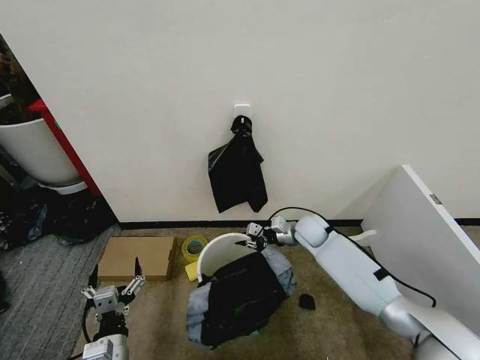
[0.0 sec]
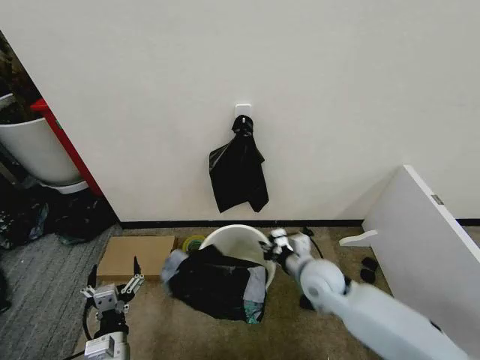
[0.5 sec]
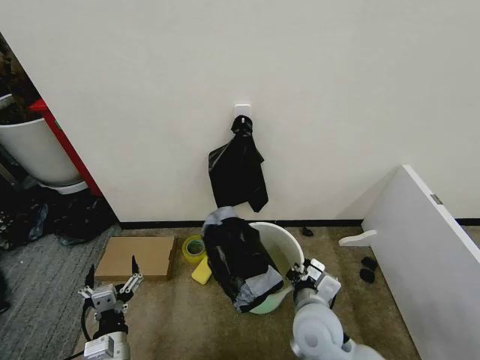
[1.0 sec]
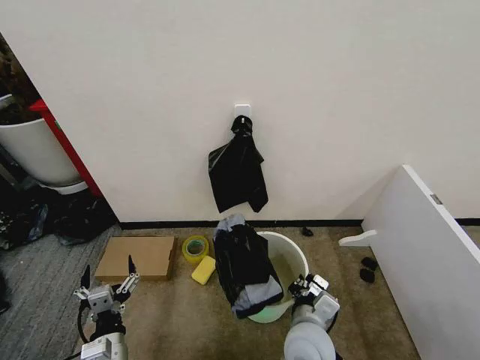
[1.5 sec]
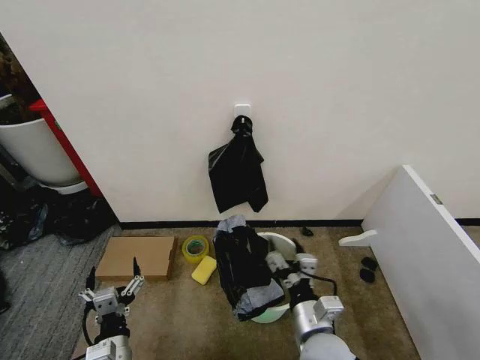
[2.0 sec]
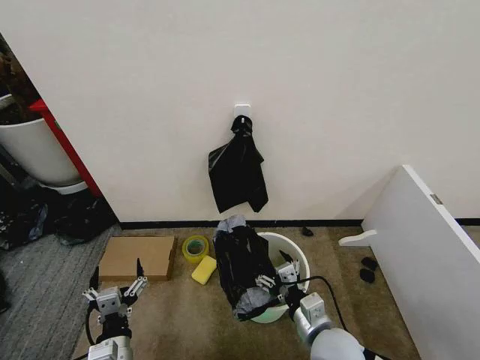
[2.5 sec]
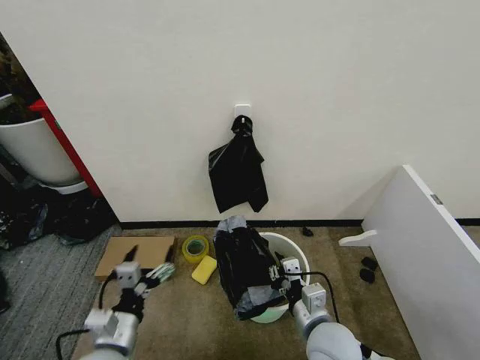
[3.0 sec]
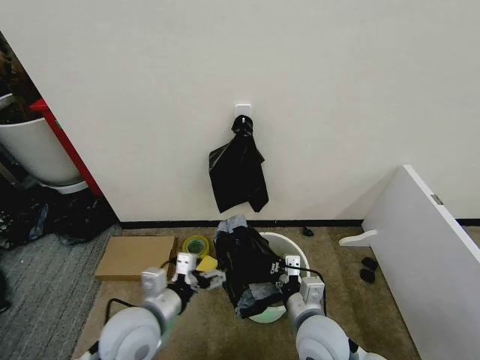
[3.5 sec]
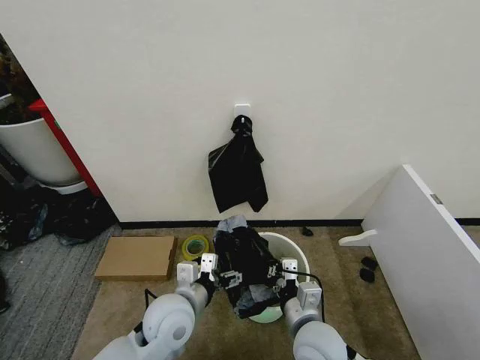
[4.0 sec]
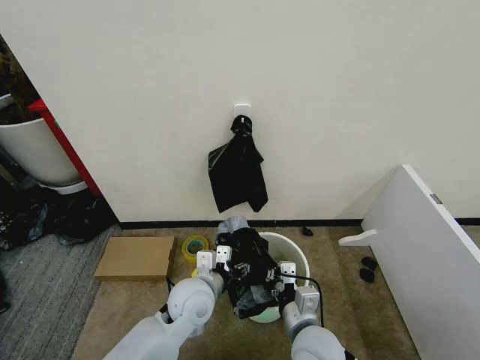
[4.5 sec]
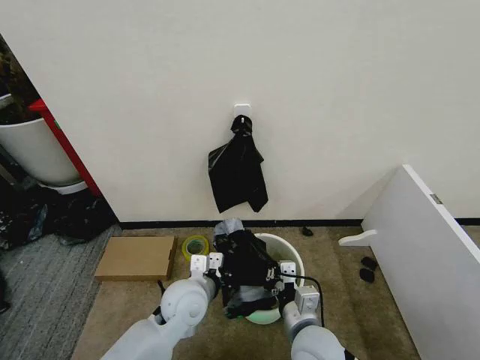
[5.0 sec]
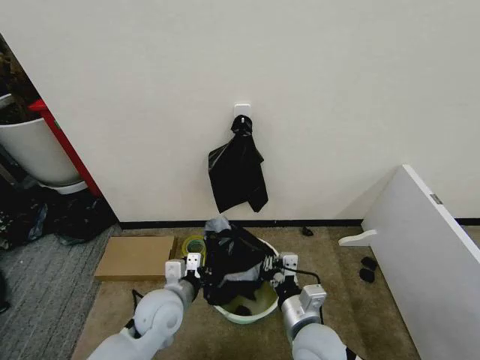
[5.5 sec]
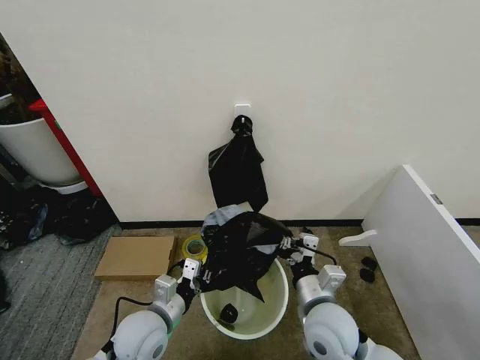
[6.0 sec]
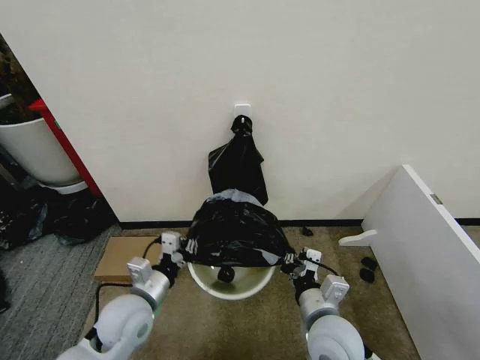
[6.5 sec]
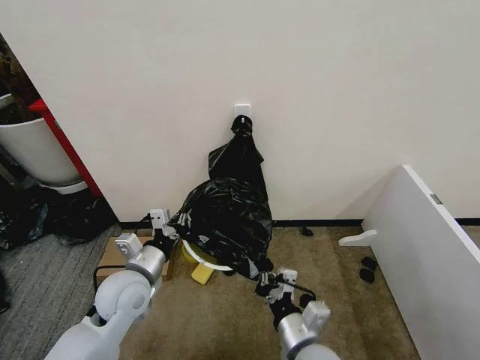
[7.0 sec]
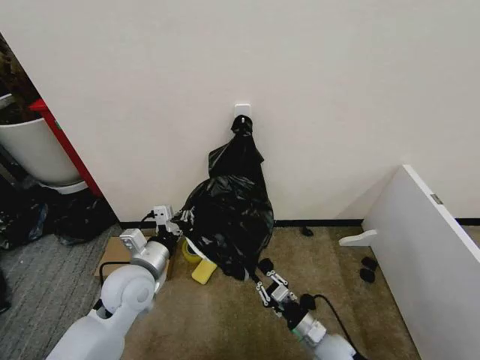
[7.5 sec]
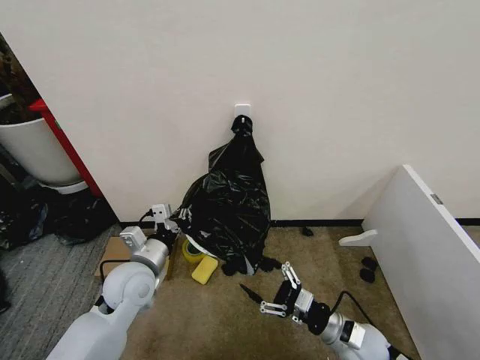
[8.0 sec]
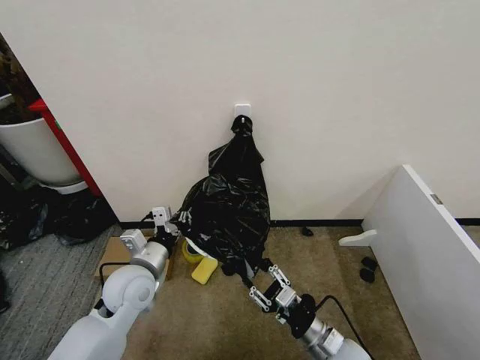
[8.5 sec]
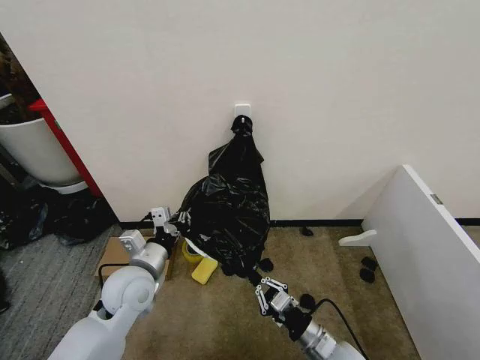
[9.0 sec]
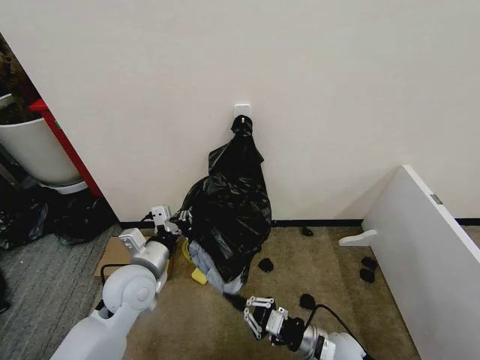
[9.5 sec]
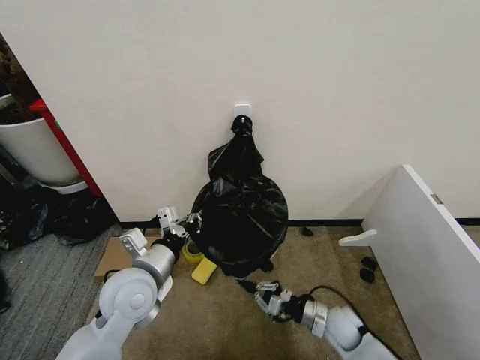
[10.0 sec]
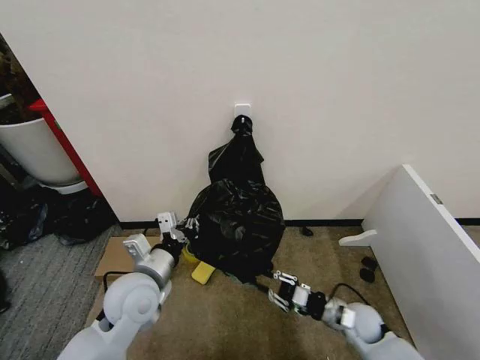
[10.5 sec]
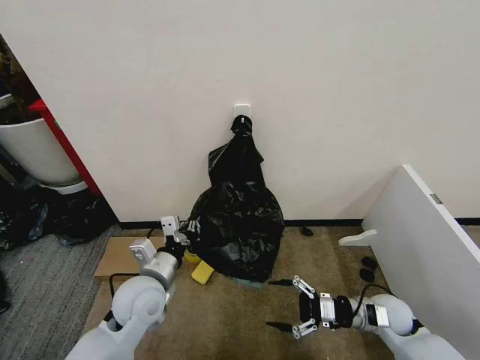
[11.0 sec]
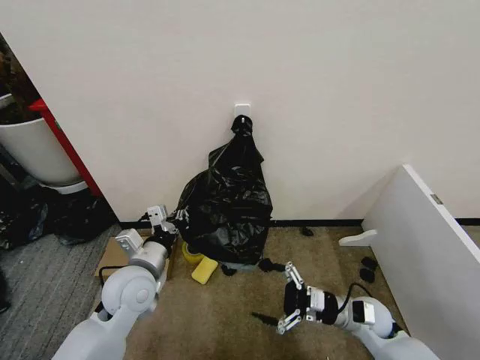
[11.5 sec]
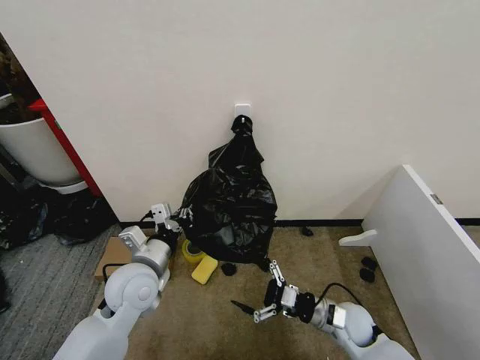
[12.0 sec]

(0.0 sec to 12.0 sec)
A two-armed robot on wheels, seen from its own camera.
Task of the whole recording: Place the garbage bag over the trash bin.
0.0 sec - 2.0 sec: The right gripper travels backward by some 30 cm, and opens.
2.0 sec - 4.0 sec: The right gripper closes its fingers, while the left gripper goes about 20 cm forward, to the right and upward.
4.0 sec - 6.0 sec: The left gripper shifts approximately 5 cm to the left, and closes its fingers.
6.0 sec - 8.0 sec: The left gripper travels forward and upward by some 10 cm. Meanwhile the right gripper heads downward and to the right, covering some 15 cm, and opens up.
8.0 sec - 10.0 sec: The right gripper is displaced downward and forward by approximately 10 cm, and closes its fingers; the left gripper ends up about 5 cm from where it was.
10.0 sec - 12.0 sec: The right gripper shifts about 5 cm upward, reaches about 10 cm to the right, then returns, and opens its fingers.

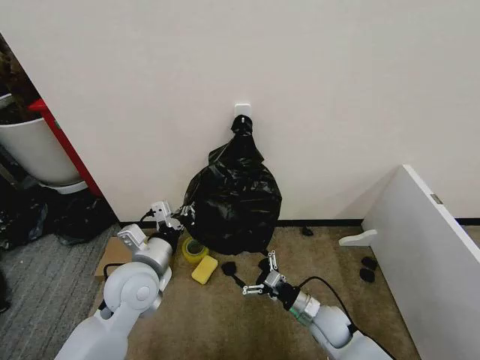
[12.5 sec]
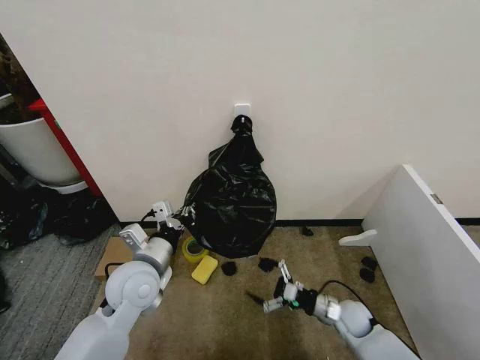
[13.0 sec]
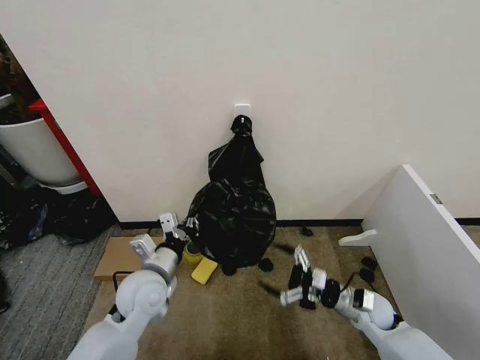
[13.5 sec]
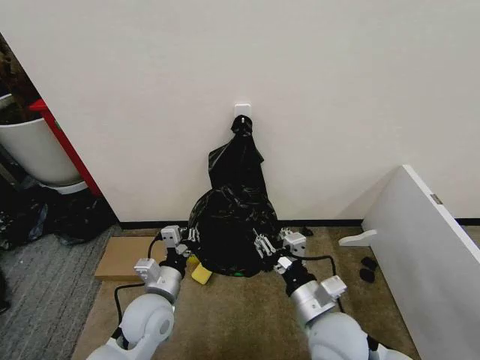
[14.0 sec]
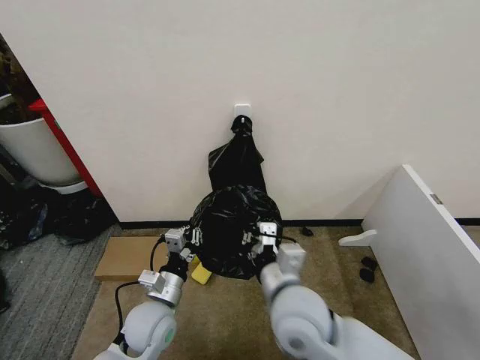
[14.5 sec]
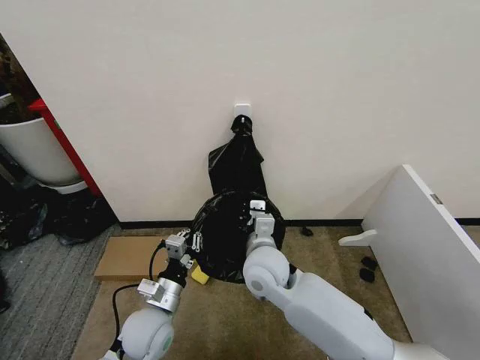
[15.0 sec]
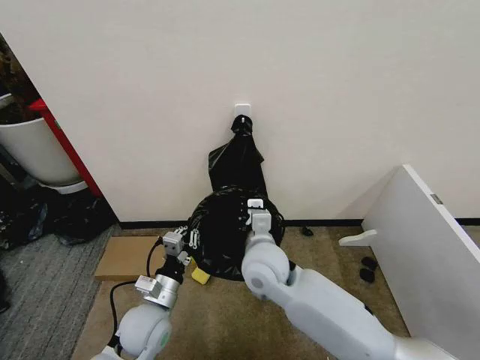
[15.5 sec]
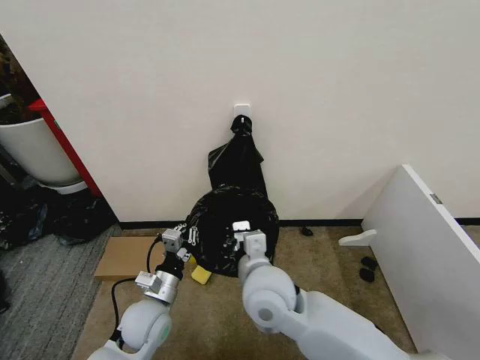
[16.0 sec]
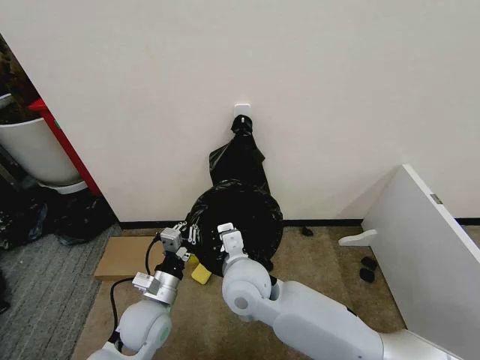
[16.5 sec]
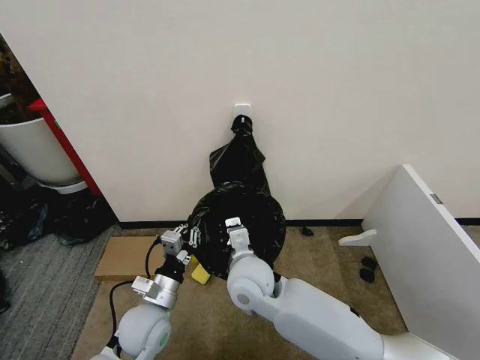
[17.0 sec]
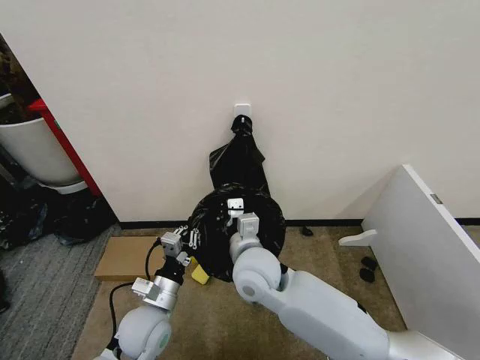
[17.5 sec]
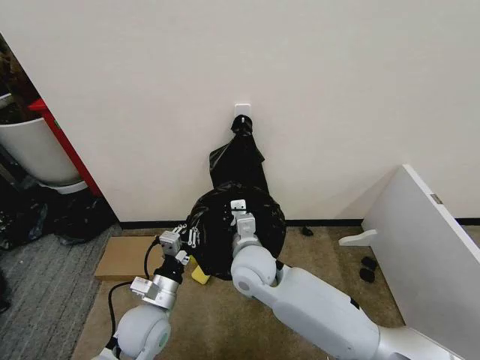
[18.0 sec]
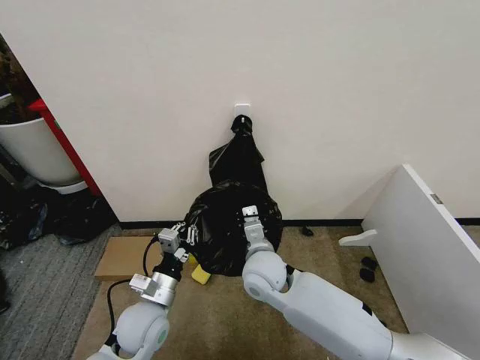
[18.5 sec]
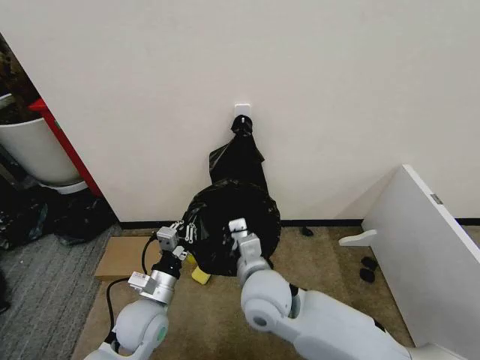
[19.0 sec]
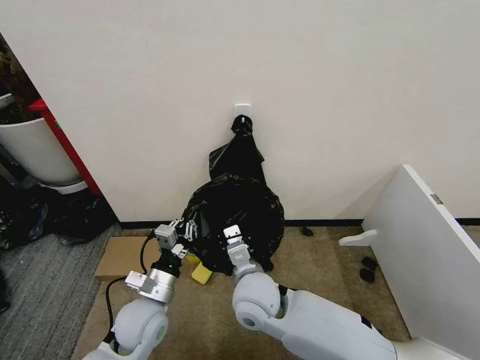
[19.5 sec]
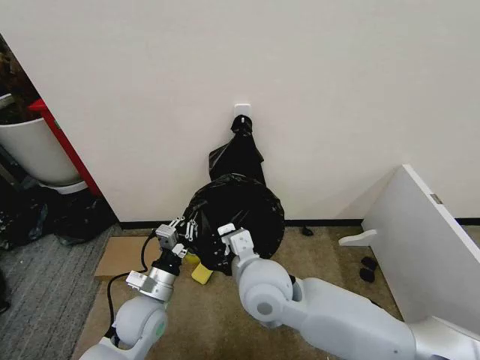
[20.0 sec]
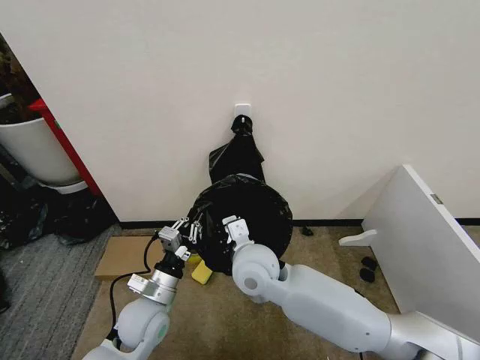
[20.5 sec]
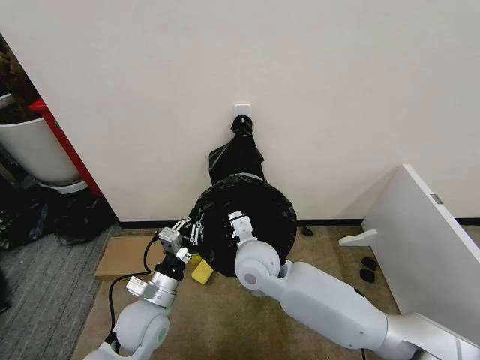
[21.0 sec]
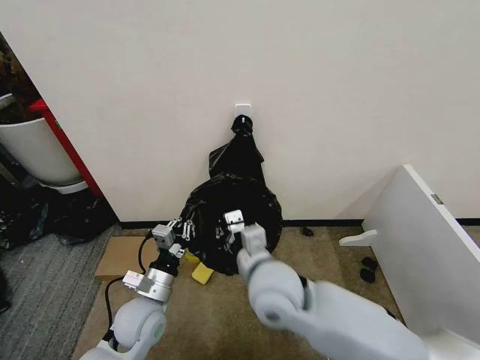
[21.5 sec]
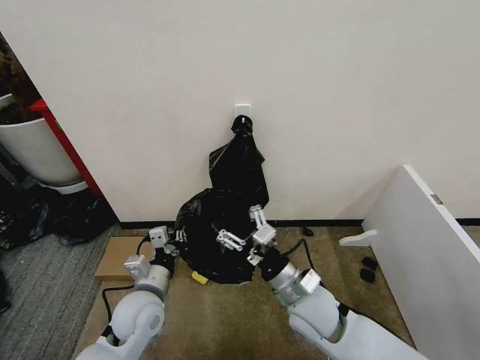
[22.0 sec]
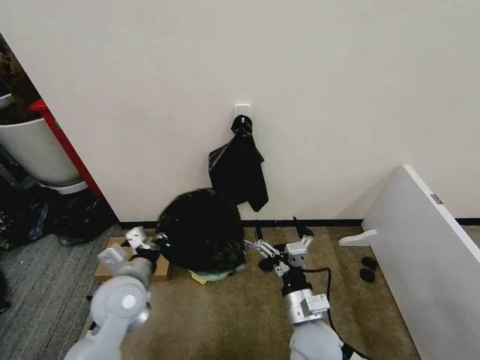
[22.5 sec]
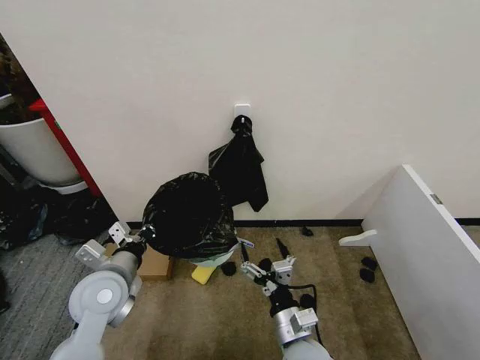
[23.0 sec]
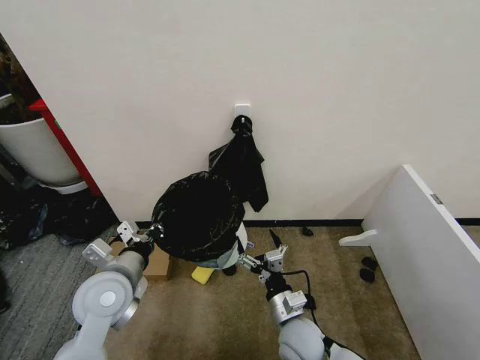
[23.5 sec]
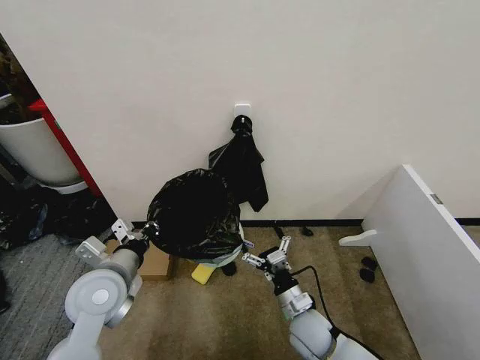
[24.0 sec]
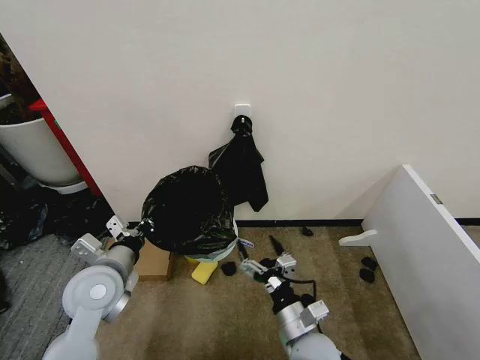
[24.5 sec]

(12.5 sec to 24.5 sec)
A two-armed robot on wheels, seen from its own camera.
Task of the whole recording: Place the garbage bag over the trash bin.
12.5 sec - 14.5 sec: The left gripper shifts some 10 cm downward. The right gripper travels upward and to the left by about 25 cm, and closes up.
14.5 sec - 16.5 sec: The right gripper is displaced to the left and forward by about 10 cm.
16.5 sec - 18.5 sec: The right gripper shifts by about 5 cm.
20.5 sec - 22.5 sec: The left gripper goes roughly 5 cm upward. The right gripper travels backward, to the right and downward by roughly 20 cm, and opens.
22.5 sec - 24.5 sec: The right gripper moves approximately 10 cm downward and comes back.

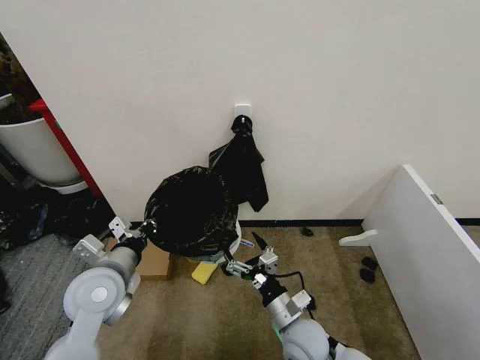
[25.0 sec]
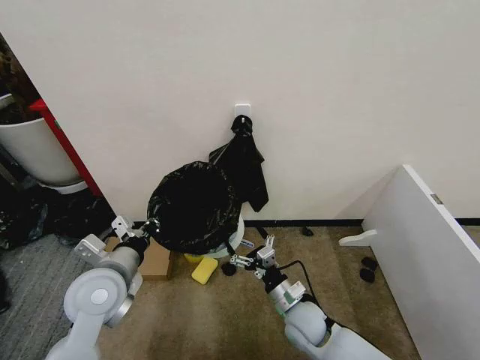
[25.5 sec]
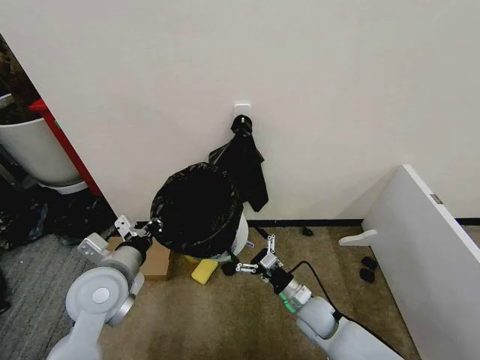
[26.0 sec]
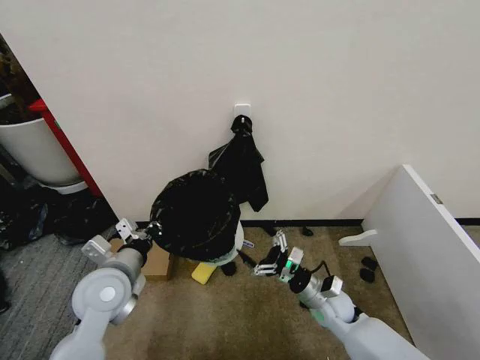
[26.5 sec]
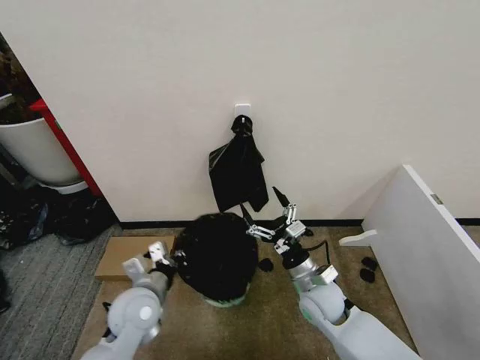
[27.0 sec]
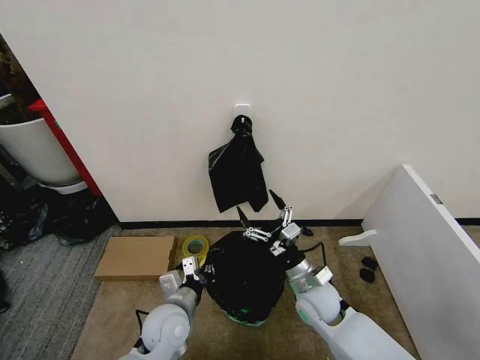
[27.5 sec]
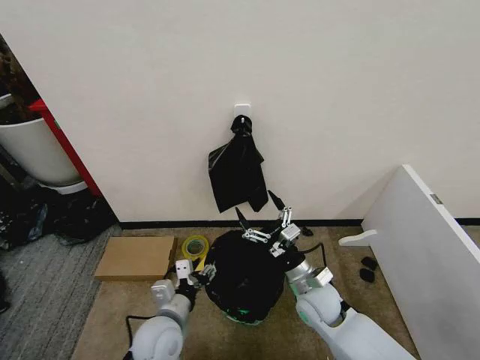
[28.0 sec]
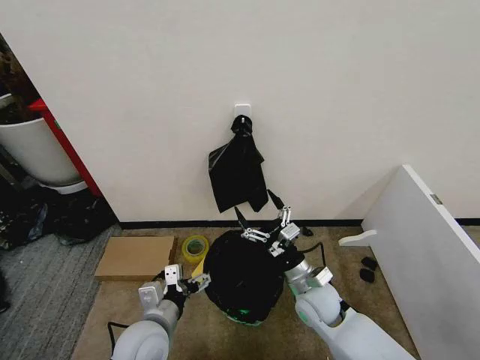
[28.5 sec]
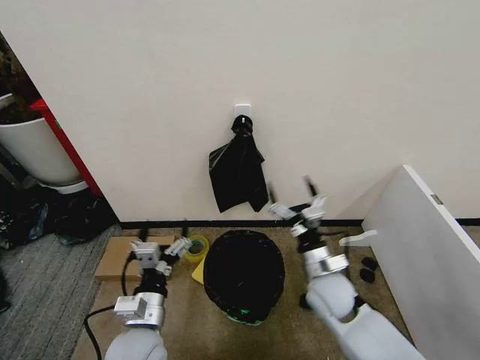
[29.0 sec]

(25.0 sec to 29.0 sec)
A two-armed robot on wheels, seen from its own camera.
Task of the whole recording: Place the garbage bag over the trash bin.
25.0 sec - 27.0 sec: The left gripper goes approximately 10 cm downward and to the right; the right gripper moves forward, approximately 10 cm.
27.0 sec - 29.0 sec: The left gripper is displaced backward by some 10 cm, and opens.